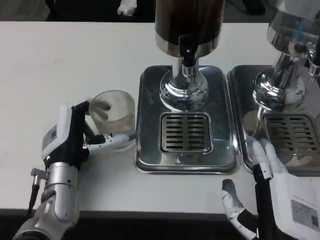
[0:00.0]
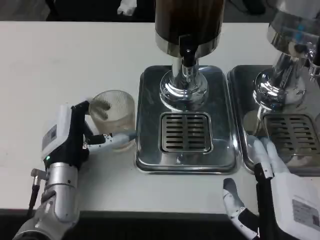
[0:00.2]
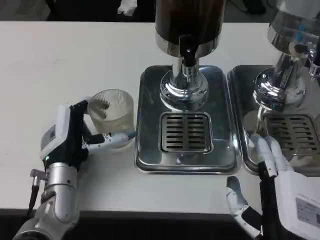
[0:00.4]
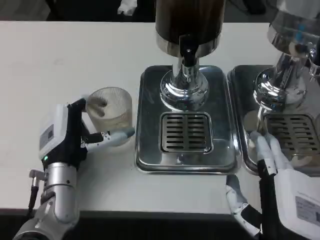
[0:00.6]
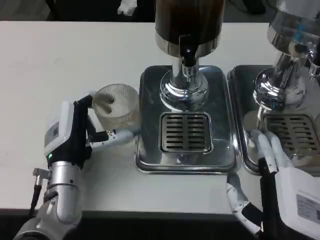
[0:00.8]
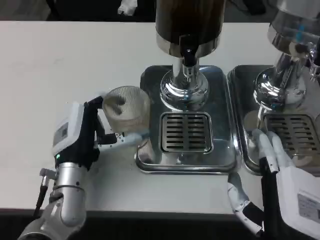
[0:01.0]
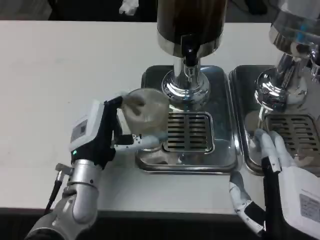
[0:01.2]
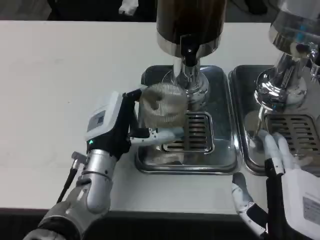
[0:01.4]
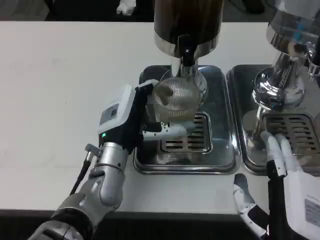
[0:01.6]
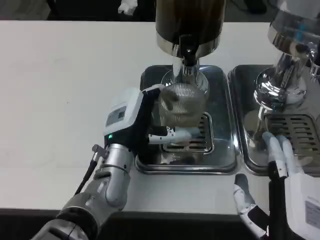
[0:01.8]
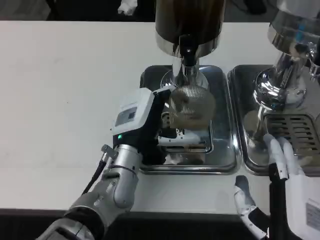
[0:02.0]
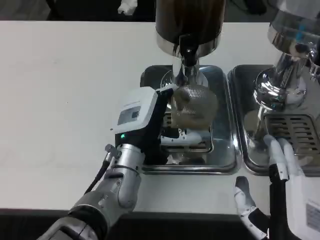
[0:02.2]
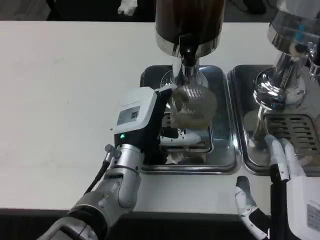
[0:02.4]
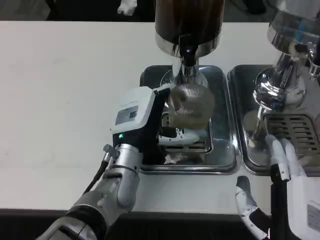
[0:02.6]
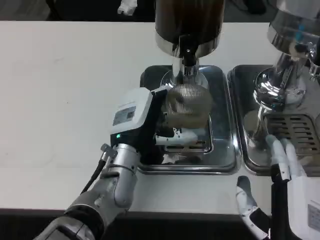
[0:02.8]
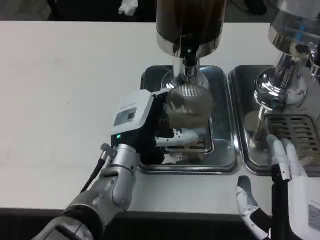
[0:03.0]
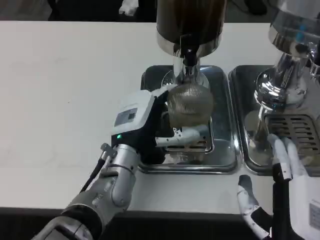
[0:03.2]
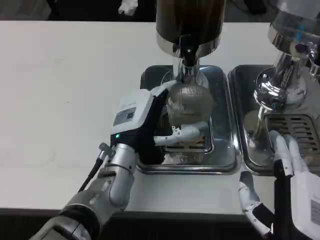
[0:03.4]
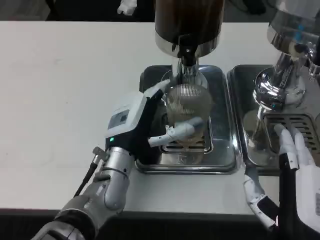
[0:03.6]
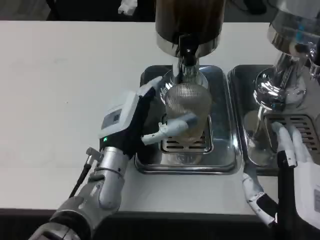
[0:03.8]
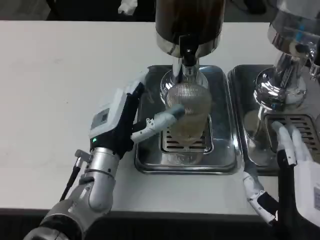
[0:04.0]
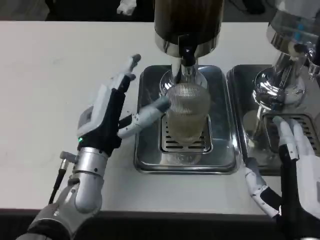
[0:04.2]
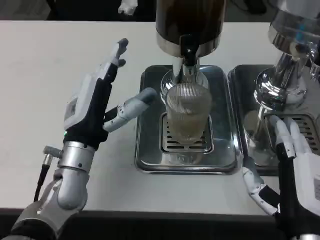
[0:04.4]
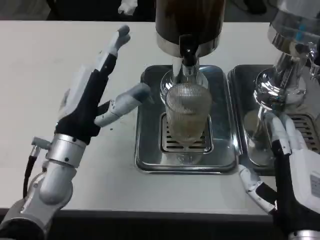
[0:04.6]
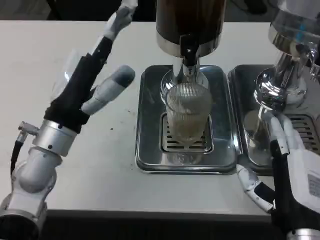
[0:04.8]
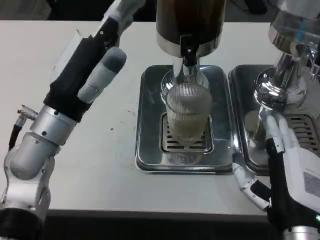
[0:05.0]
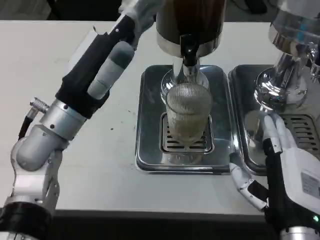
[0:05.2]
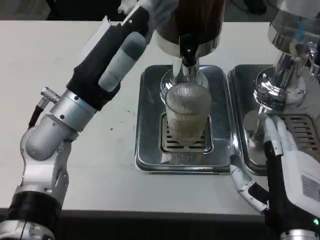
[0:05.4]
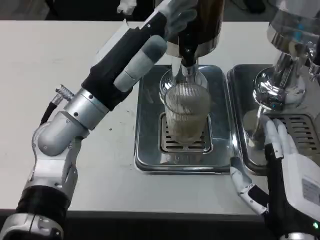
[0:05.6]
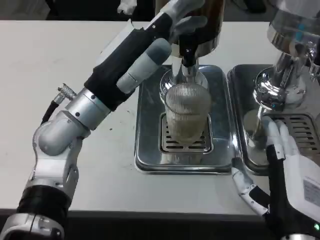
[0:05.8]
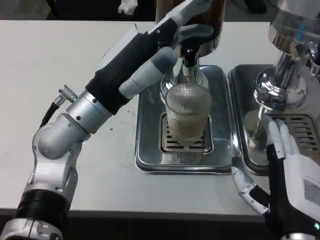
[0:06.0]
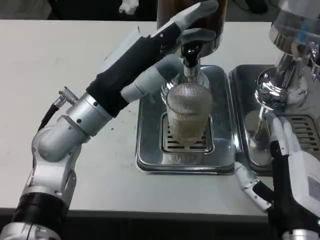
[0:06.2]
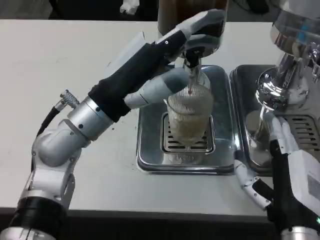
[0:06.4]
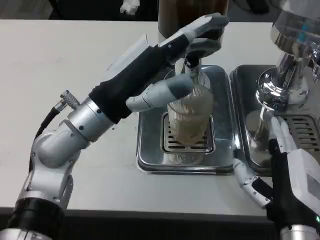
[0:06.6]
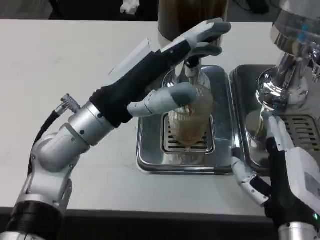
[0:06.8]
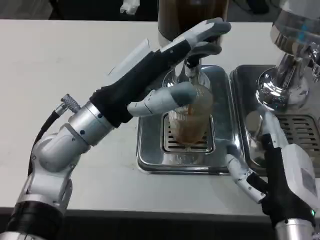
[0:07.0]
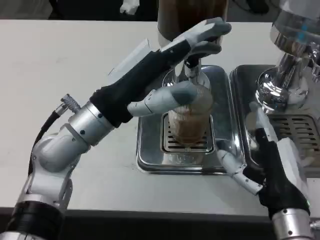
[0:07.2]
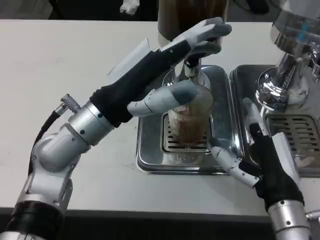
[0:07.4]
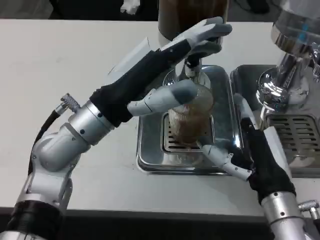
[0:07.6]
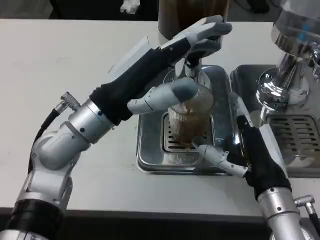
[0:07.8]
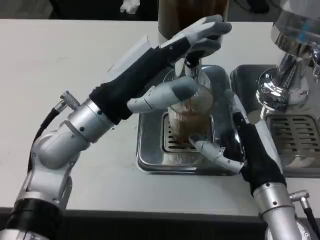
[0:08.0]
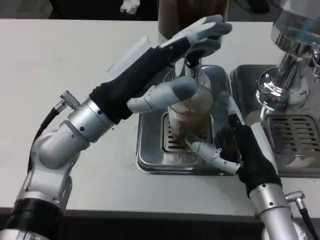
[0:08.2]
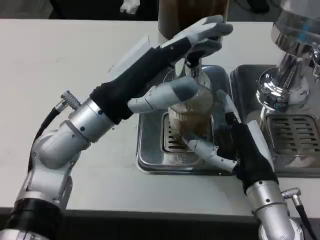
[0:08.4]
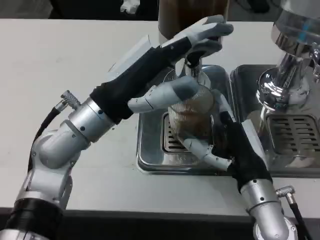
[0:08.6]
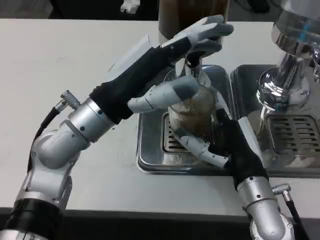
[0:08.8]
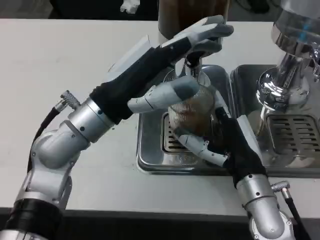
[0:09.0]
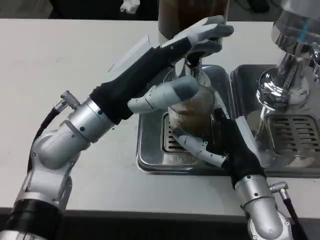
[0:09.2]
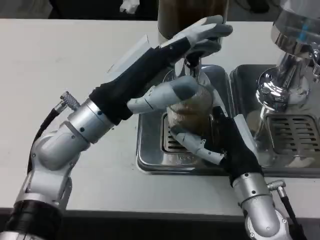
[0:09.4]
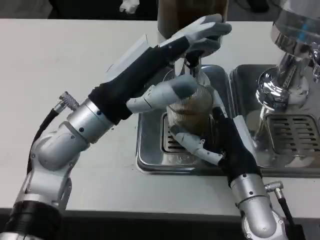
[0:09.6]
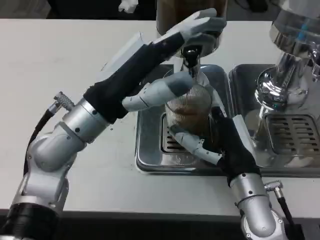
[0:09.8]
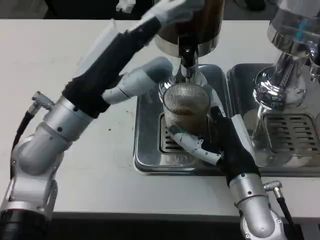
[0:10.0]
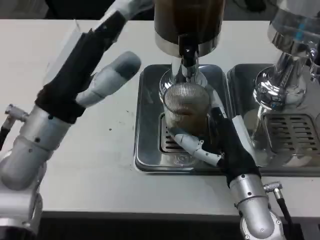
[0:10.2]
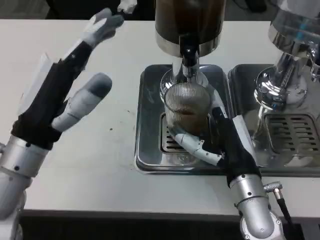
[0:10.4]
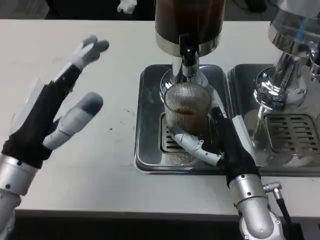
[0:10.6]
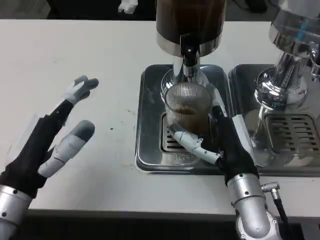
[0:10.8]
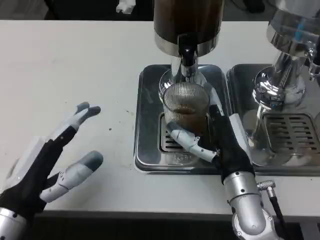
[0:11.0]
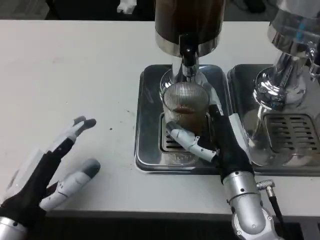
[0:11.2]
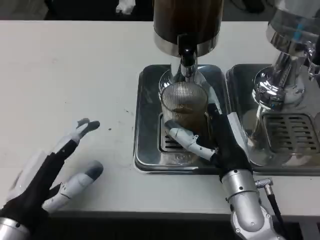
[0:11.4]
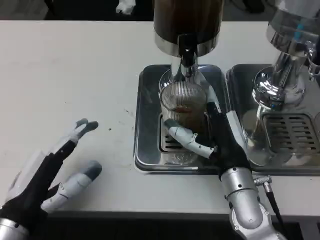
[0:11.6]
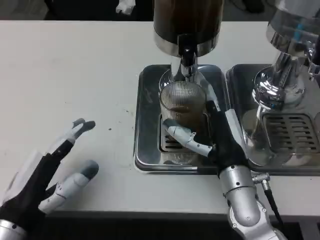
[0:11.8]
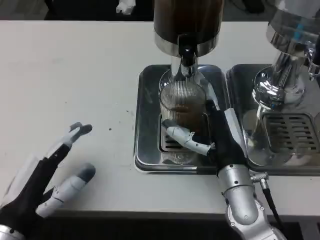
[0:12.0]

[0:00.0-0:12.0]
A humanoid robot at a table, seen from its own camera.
Task of the whole recording: Grasp the cup under the faucet to collect the drink, then remove the cup.
0.0 to 1.6 s: The left hand moves to the right, about 5 cm.
1.6 to 3.0 s: The hands make only small movements.
3.0 to 4.4 s: The left hand goes some 5 cm to the left.
4.4 to 6.0 s: The left hand heads upward, covering approximately 10 cm.
6.0 to 7.6 s: The right hand goes approximately 5 cm forward.
7.6 to 9.0 s: There are only small adjustments of the hands.
9.0 to 10.4 s: The left hand shifts some 10 cm to the left and backward.
10.4 to 12.0 s: The left hand goes some 10 cm backward and downward.

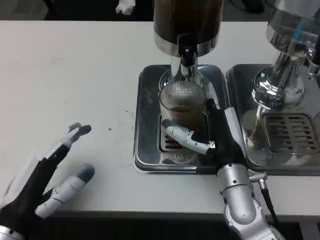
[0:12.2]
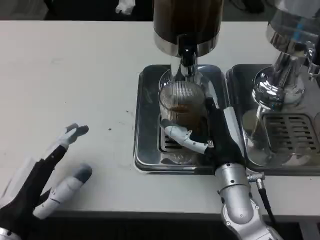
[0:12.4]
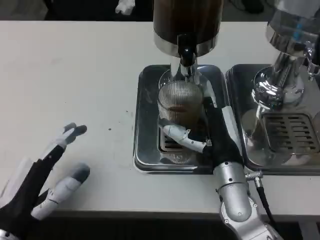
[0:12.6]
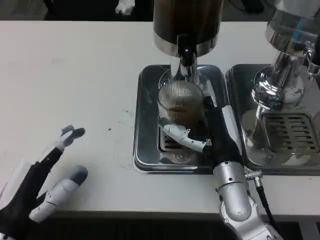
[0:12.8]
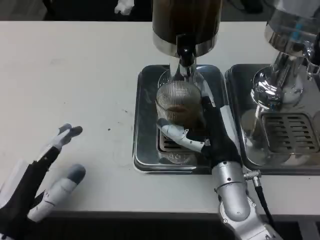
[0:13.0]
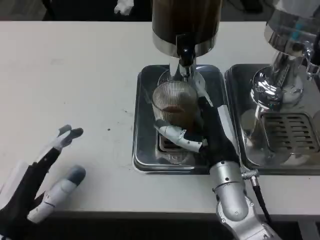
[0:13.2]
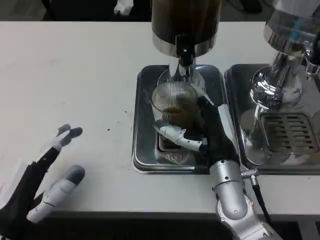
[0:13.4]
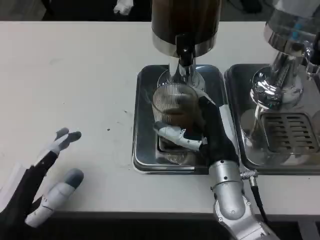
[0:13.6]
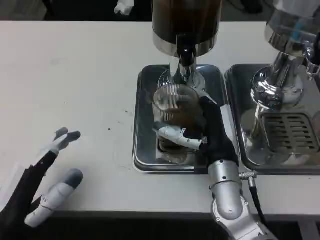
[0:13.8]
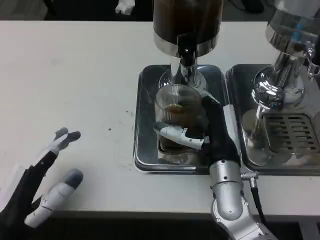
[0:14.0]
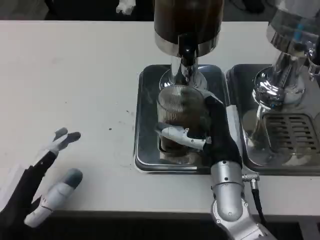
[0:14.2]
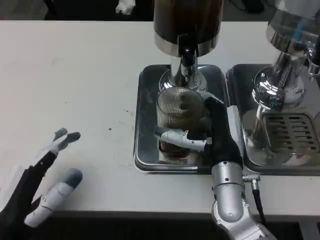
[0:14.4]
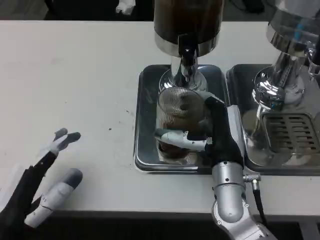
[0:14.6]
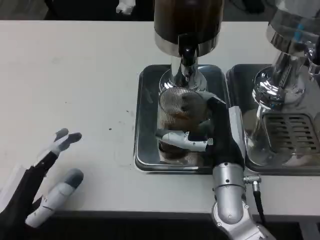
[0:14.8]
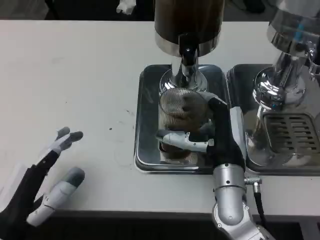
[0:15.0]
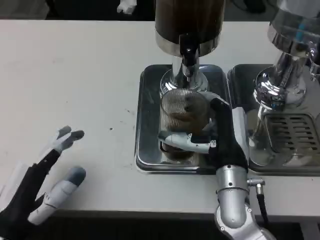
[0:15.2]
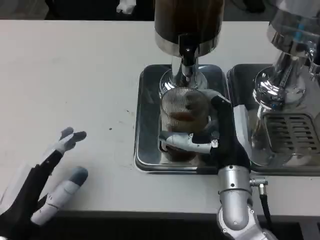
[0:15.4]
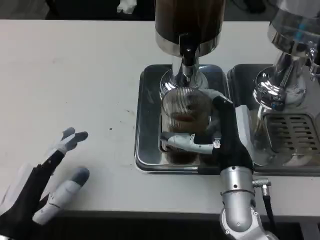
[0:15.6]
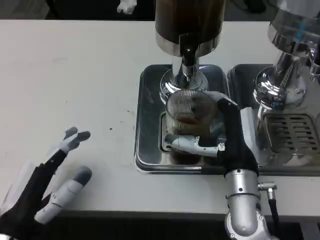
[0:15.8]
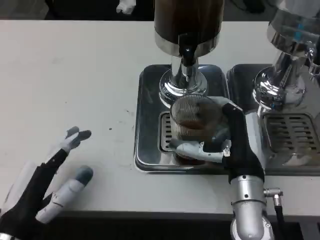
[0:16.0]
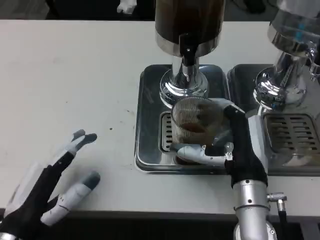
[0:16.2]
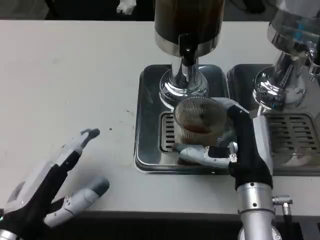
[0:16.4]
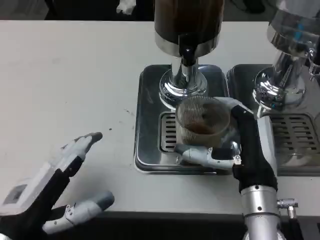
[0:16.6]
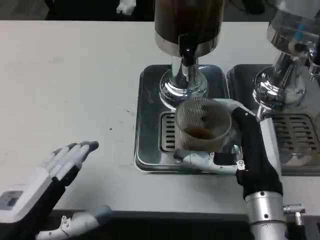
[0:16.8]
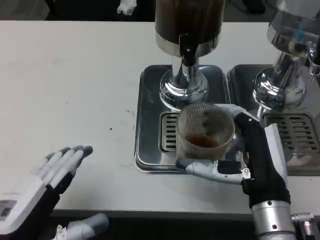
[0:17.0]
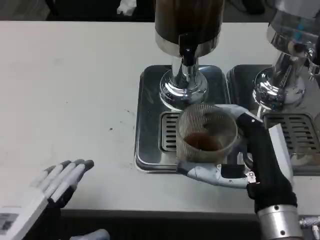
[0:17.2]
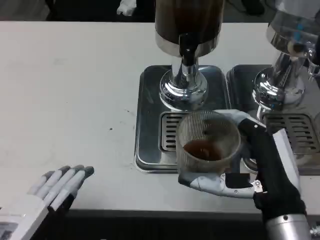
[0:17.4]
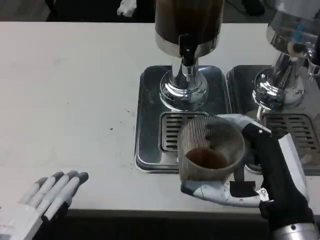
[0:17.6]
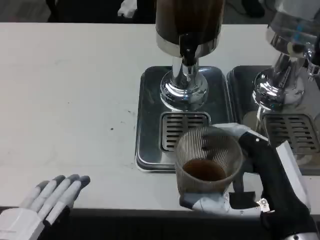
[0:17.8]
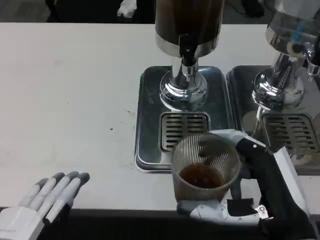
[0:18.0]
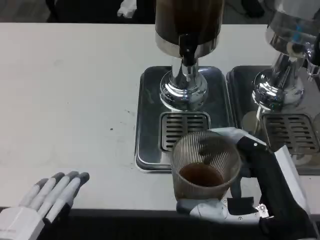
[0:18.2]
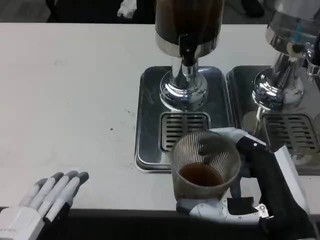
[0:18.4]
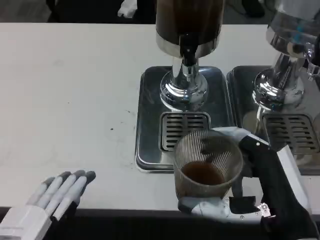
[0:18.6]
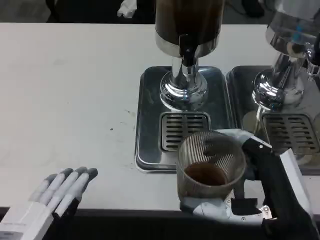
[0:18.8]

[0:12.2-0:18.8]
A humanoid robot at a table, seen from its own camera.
Task of the whole recording: Grasp the cup under the faucet to collect the drink, then remove the cup.
12.2 to 15.4 s: The hands move only a little.
15.4 to 17.2 s: The right hand shifts some 10 cm backward; the left hand shifts by approximately 5 cm.
17.2 to 18.8 s: The right hand heads backward, covering roughly 5 cm.

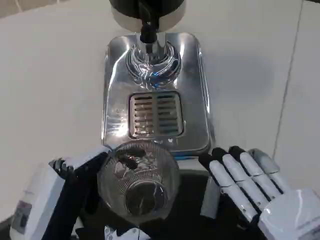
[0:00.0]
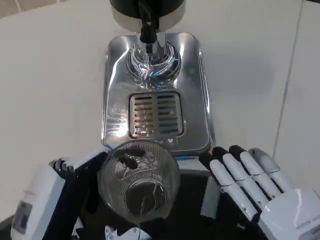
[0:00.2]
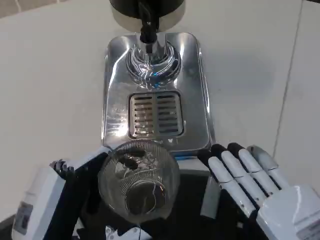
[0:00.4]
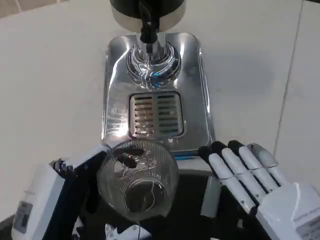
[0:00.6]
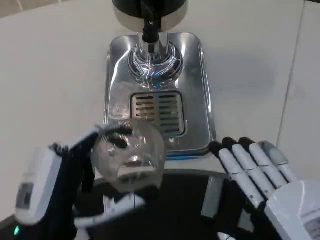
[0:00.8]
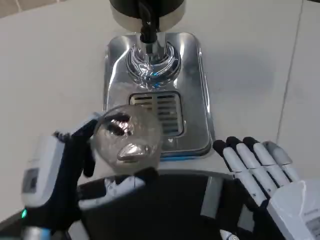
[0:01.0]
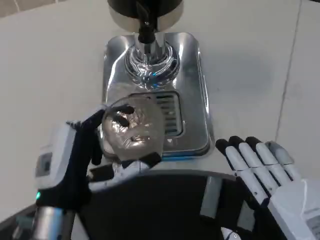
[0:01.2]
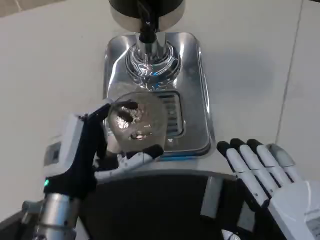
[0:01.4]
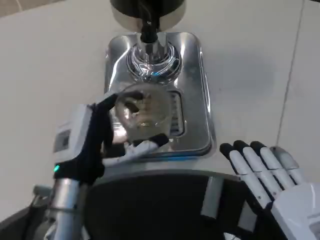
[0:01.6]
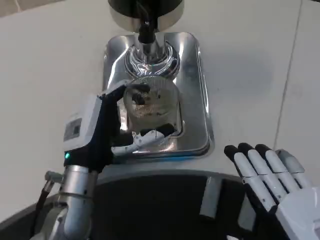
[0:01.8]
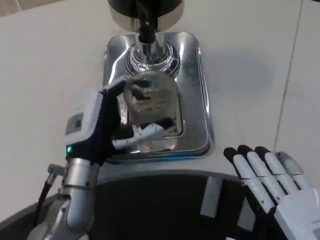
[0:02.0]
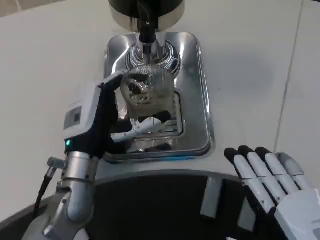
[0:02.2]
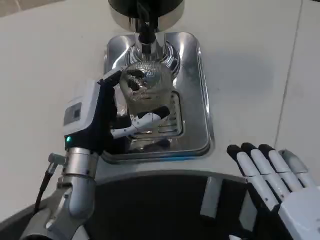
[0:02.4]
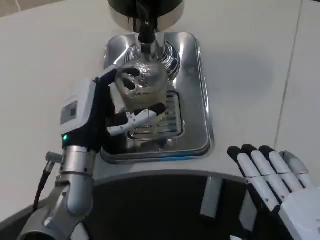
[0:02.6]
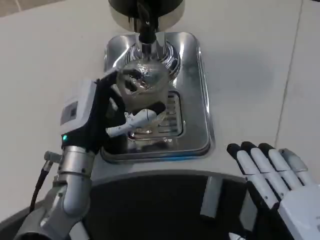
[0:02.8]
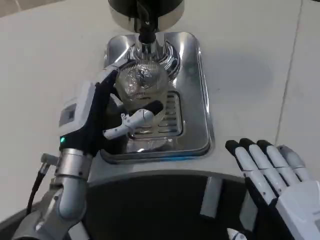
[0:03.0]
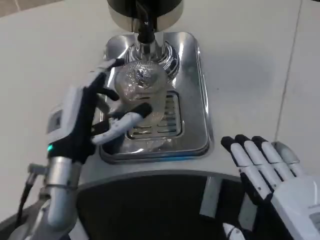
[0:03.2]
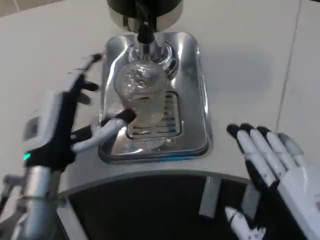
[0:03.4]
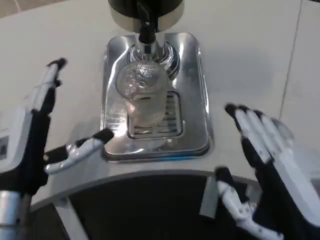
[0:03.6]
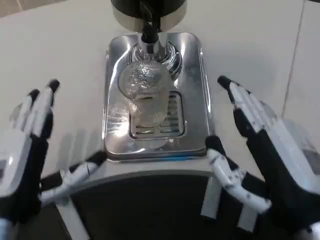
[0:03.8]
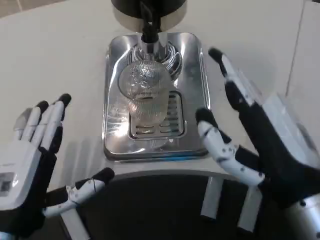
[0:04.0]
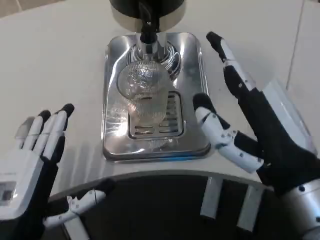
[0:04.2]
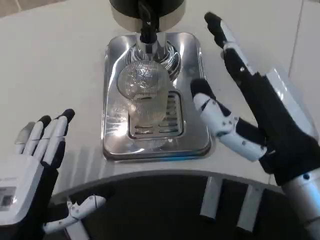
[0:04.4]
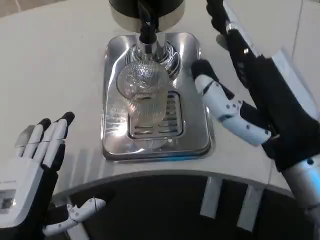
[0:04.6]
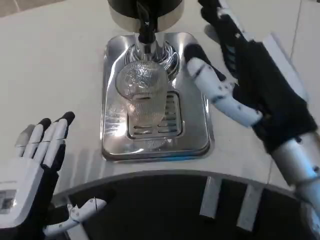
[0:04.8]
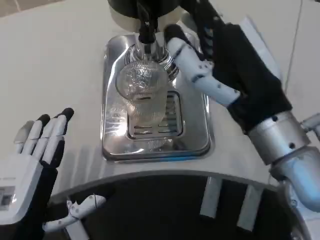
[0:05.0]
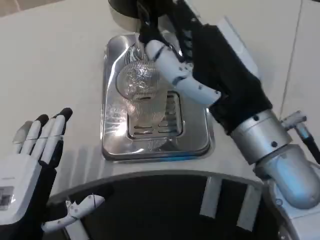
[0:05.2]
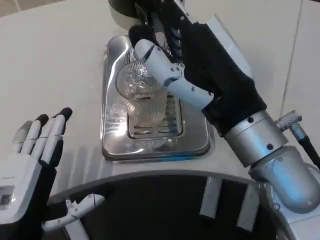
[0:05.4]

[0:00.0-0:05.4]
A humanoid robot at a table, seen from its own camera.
Task of the whole recording: Grasp the cup under the faucet to collect the drink, then remove the cup.
0.0 to 1.4 s: The left hand heads forward, covering approximately 10 cm.
1.4 to 2.8 s: The left hand travels forward by roughly 5 cm.
2.8 to 4.0 s: The left hand moves backward and to the left, roughly 15 cm, while the right hand goes roughly 10 cm forward.
4.0 to 5.4 s: The right hand is displaced forward and upward by approximately 10 cm.
